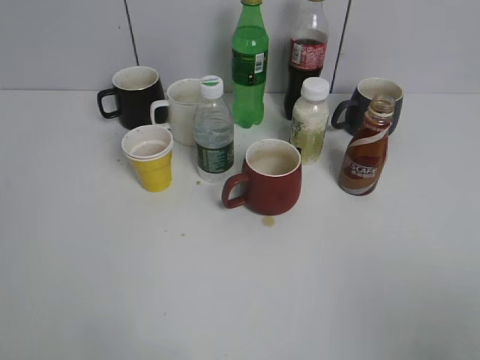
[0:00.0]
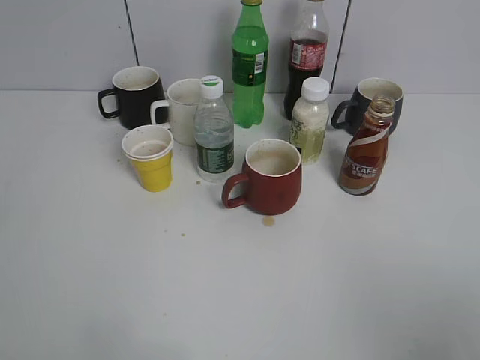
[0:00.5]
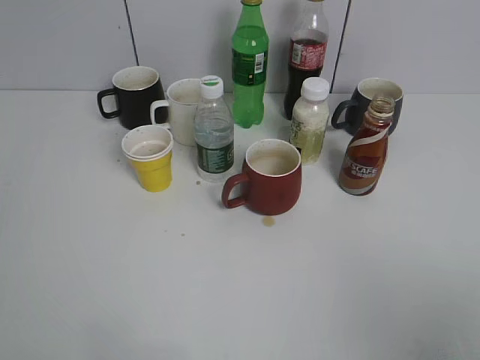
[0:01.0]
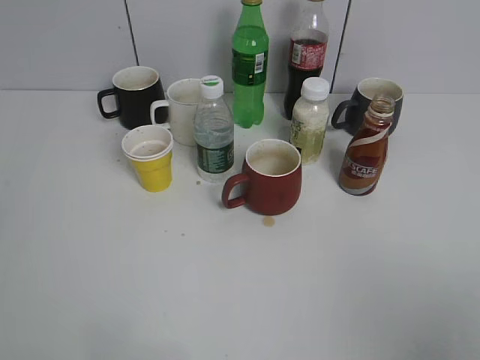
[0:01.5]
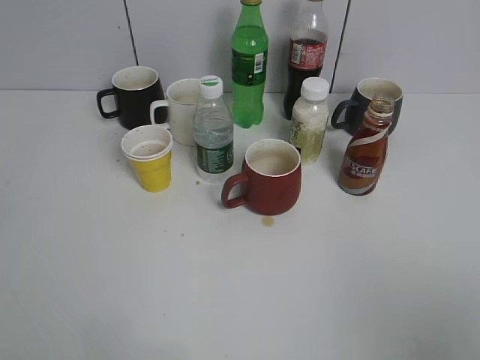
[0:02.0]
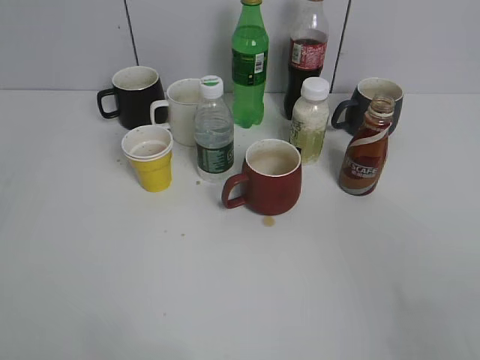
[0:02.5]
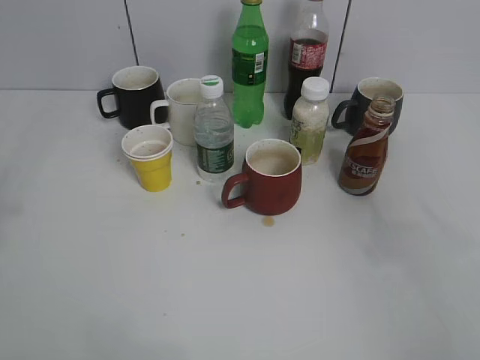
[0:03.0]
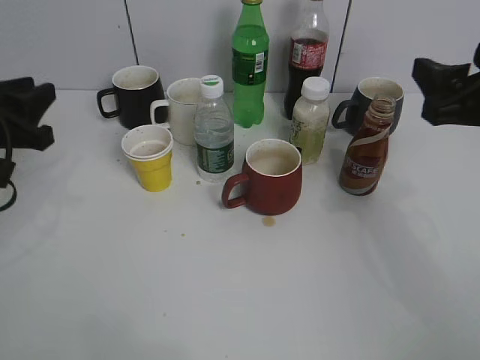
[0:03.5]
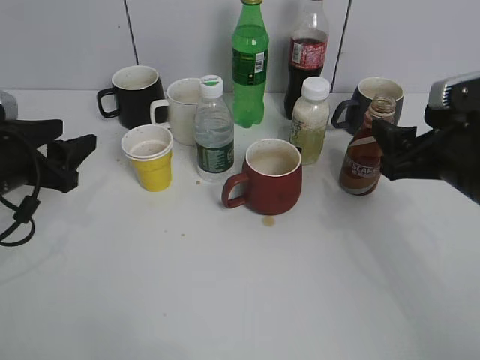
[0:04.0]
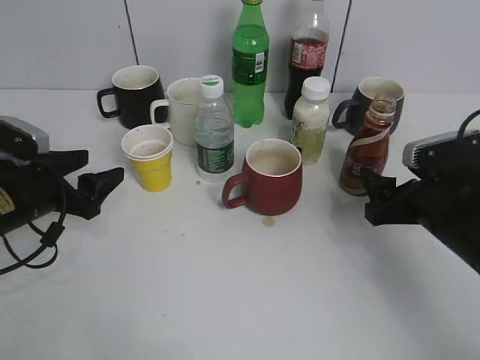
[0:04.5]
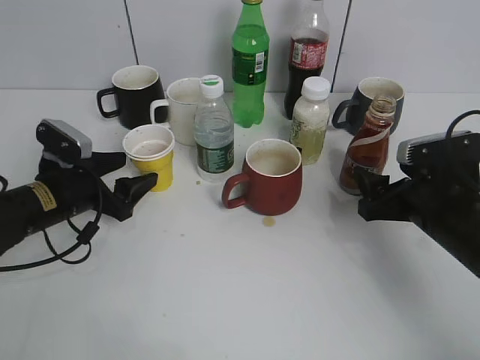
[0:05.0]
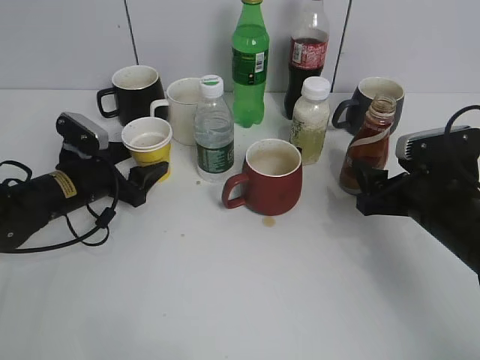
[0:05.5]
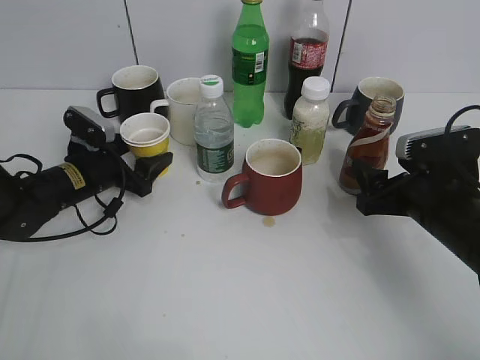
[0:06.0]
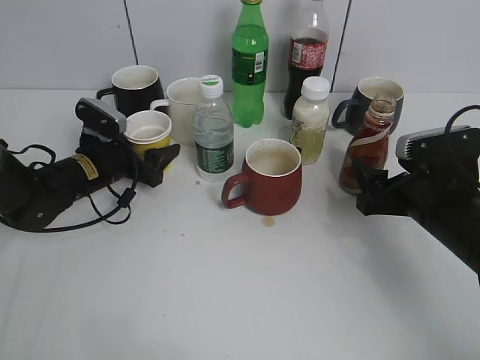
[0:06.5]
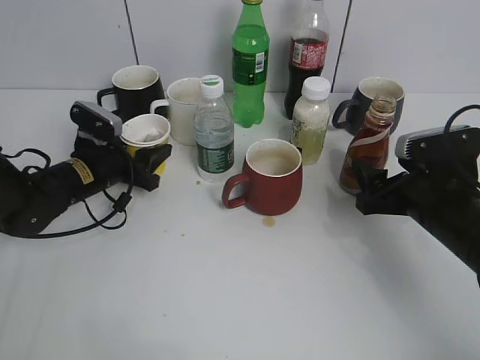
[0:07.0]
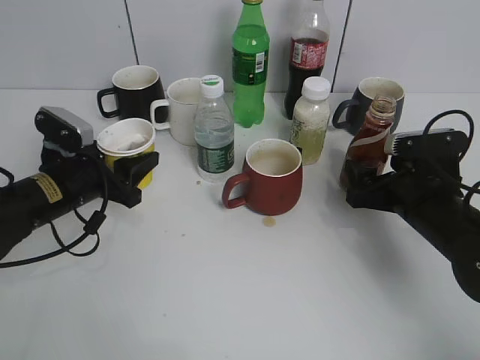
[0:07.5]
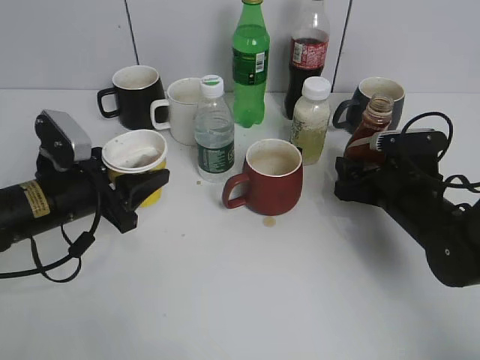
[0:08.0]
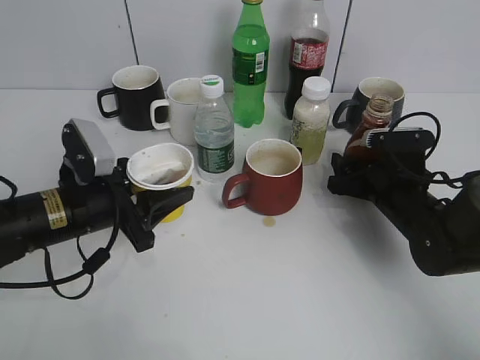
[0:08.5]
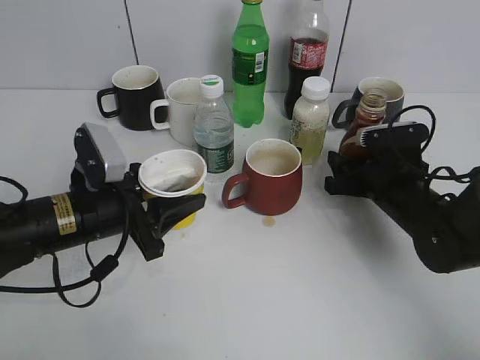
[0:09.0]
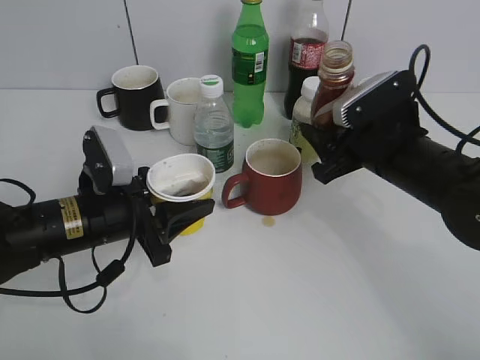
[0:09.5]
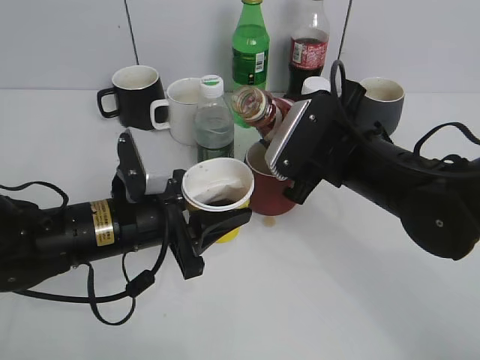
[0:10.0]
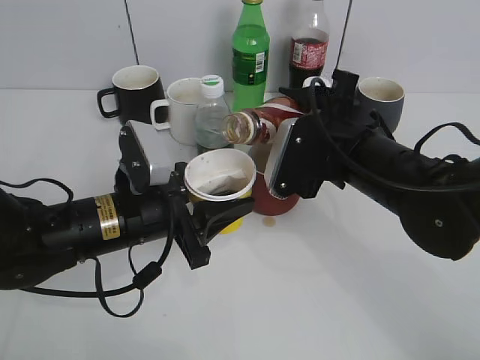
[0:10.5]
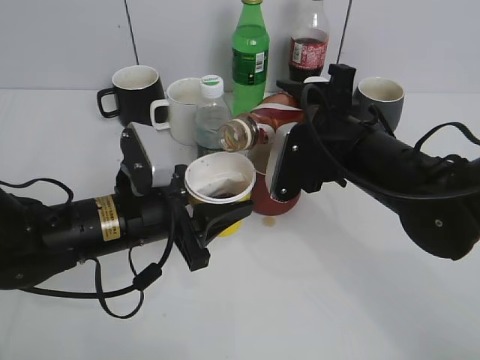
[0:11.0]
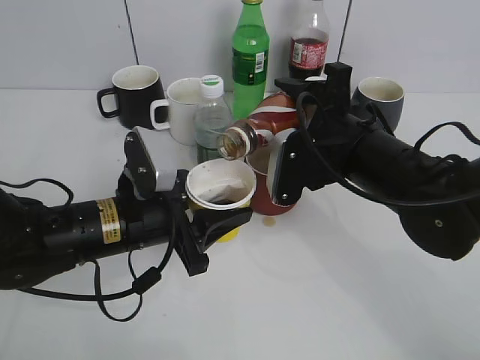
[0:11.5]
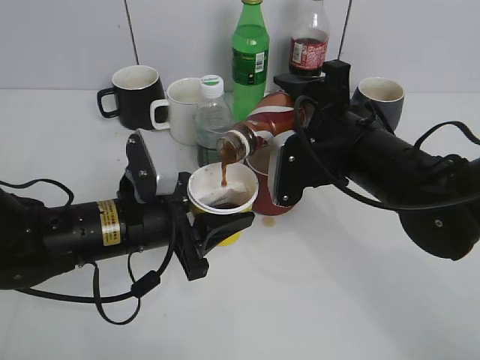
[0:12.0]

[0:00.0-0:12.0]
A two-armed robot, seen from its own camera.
Step, 0:02.5 to 0:06.5: Grasp the yellow paper cup with left gripper.
Step, 0:07.5 to 0:08.5: Grasp the bottle with coffee with right gripper.
0:02.0 to 0:04.0: The two grippers go roughly 30 cm forward and downward. The left gripper opens up.
0:04.0 to 0:06.0: The right gripper is displaced downward by roughly 5 cm. Meanwhile the left gripper goes roughly 15 cm downward, forward and to the right.
0:06.0 to 0:08.0: The left gripper heads backward and upward, covering roughly 10 cm, and closes up, while the right gripper shifts by approximately 5 cm.
0:08.0 to 0:10.0: The left gripper goes some 10 cm to the right, while the right gripper shifts about 15 cm to the left and upward, and closes its fingers.

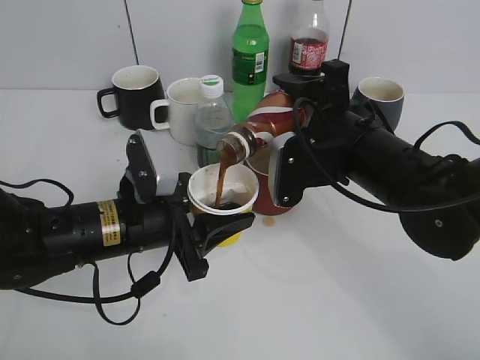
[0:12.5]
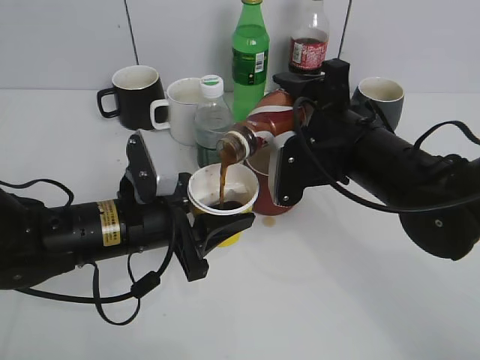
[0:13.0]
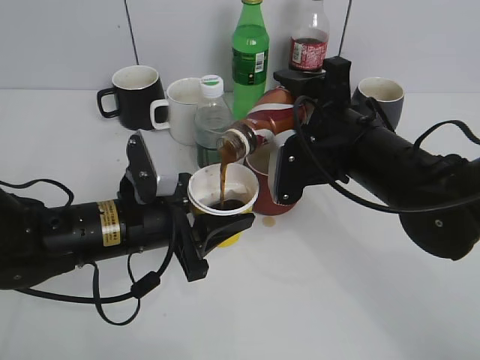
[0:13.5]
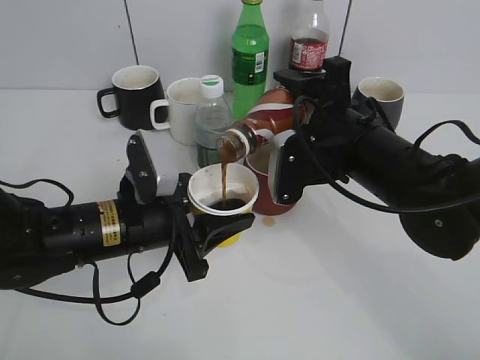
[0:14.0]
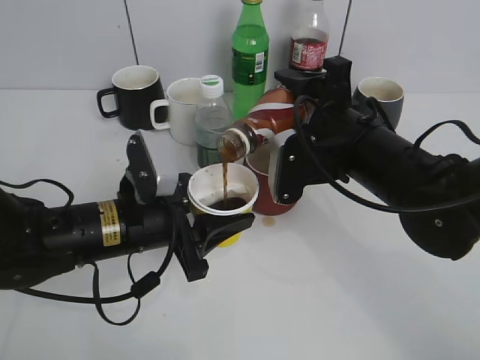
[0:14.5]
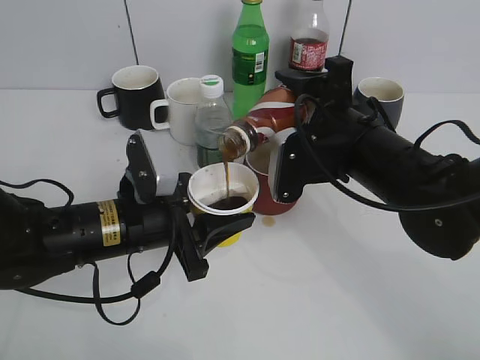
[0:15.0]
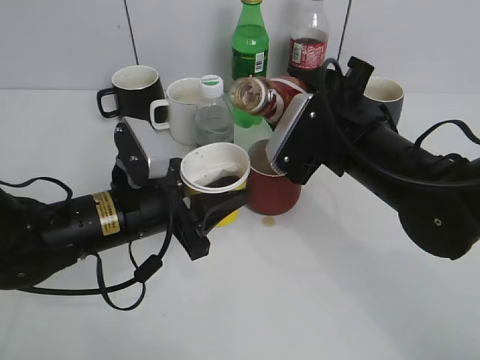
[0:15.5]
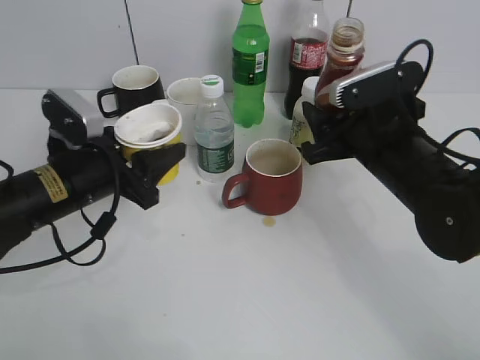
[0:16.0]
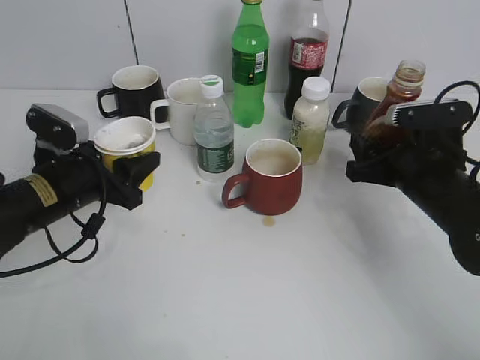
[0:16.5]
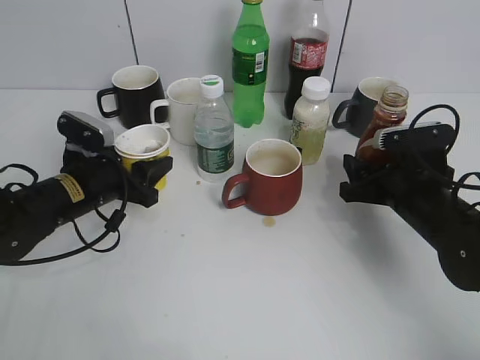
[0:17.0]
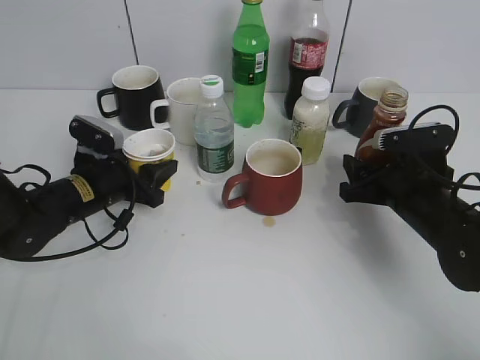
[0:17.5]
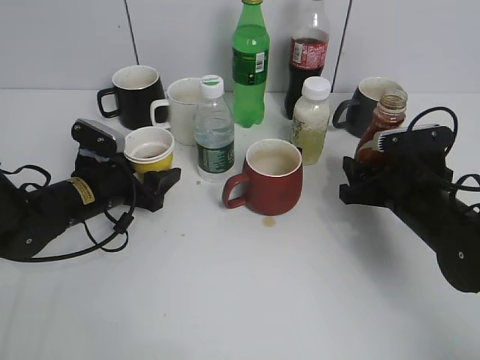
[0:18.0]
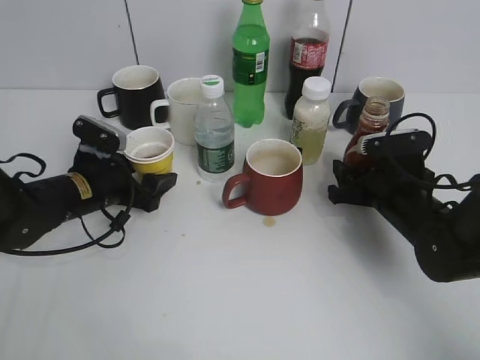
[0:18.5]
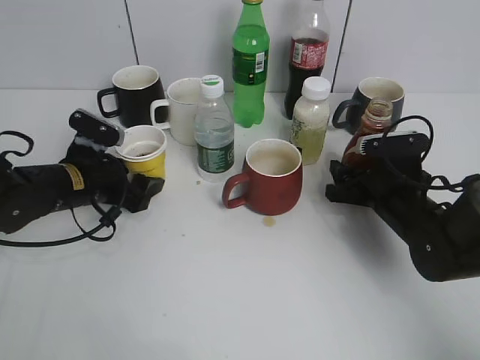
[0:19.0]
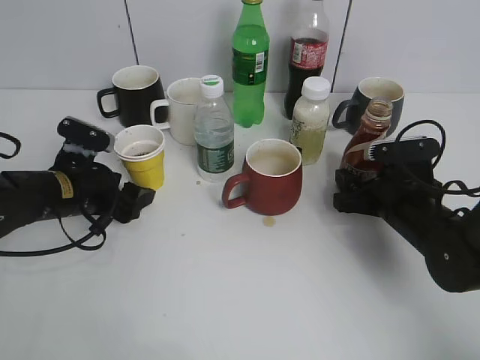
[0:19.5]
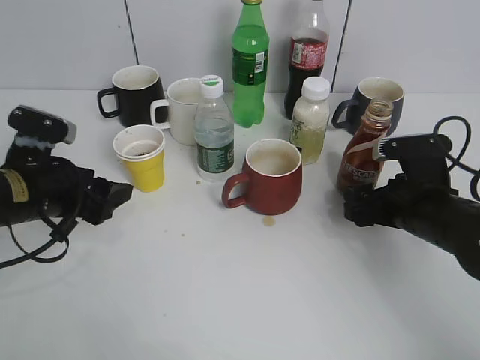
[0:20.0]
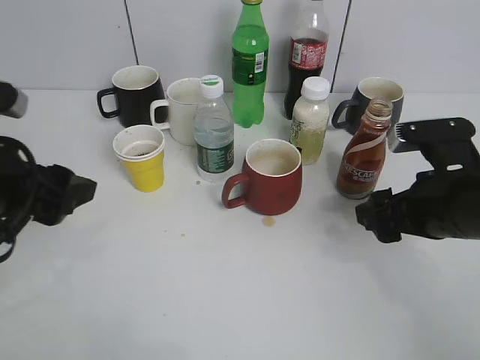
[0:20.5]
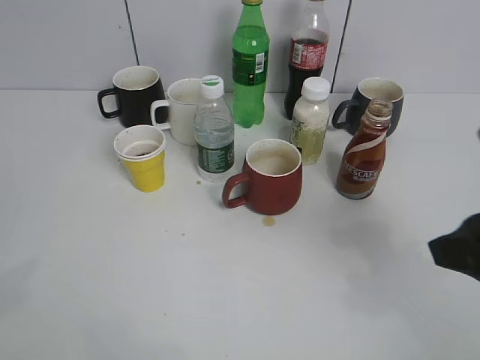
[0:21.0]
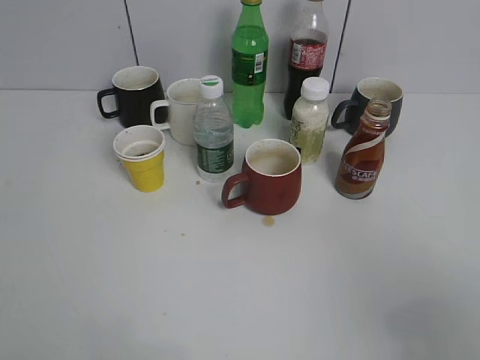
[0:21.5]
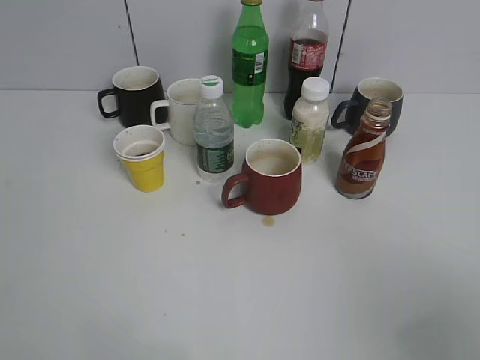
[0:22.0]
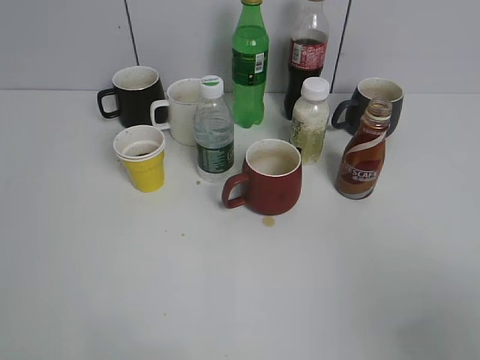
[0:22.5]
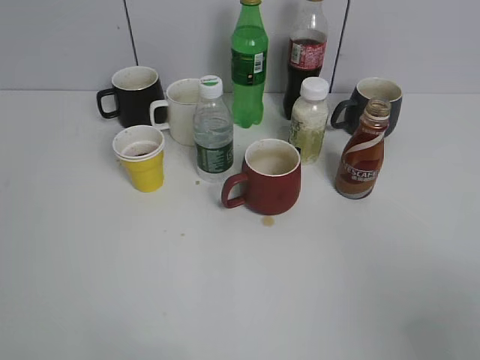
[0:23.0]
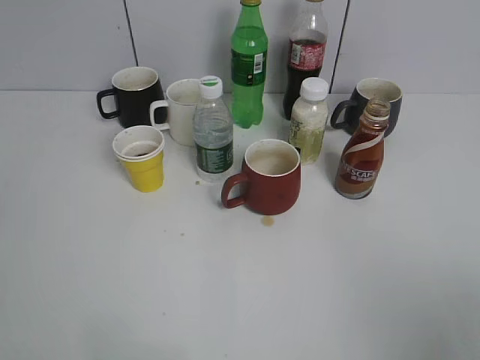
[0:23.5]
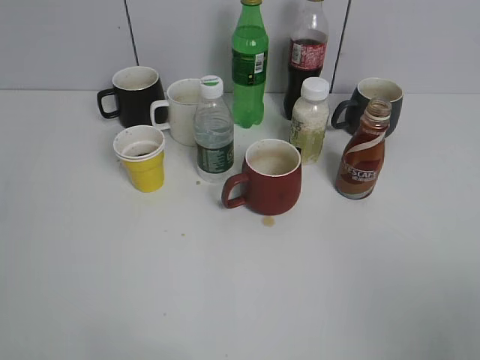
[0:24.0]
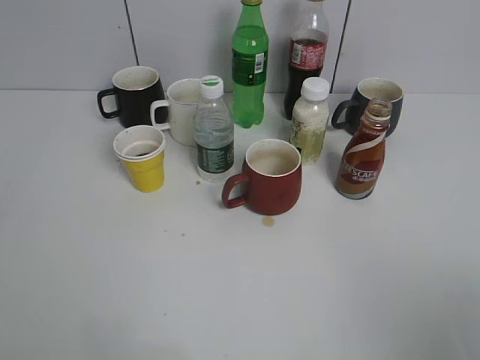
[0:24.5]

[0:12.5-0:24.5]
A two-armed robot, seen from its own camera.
Step, 0:12.5 to 0:15.5: Pour the coffee from bottle to cup with right gripper.
Step, 0:16.0 to 0:19.5: Place the coffee bottle on the table with right gripper.
0:12.5 to 0:14.5: Both grippers stay put.
0:14.5 to 0:16.5: The right gripper heads to the right, covering approximately 10 cm; the left gripper shifts roughly 10 cm to the left.
0:16.5 to 0:18.5: Both grippers move downward, approximately 5 cm. The left gripper opens its fingers.
0:18.5 to 0:20.5: The left gripper is displaced upward and backward by approximately 20 cm. The right gripper shifts about 10 cm upward and backward, and opens its fingers.
0:20.5 to 0:22.5: The left gripper heads backward, upward and to the left, covering some 25 cm, while the right gripper moves backward and upward, approximately 25 cm.

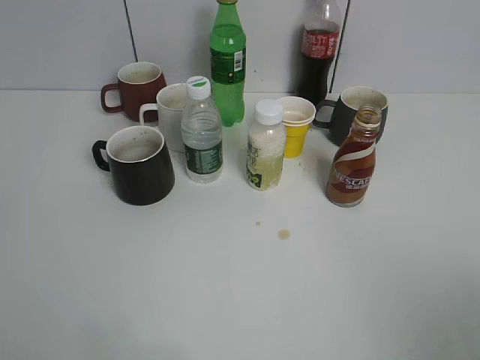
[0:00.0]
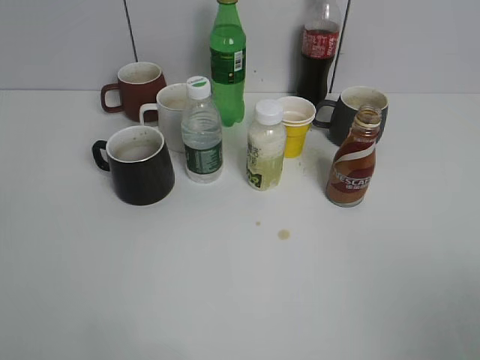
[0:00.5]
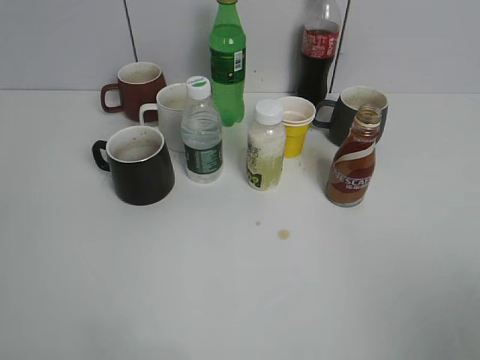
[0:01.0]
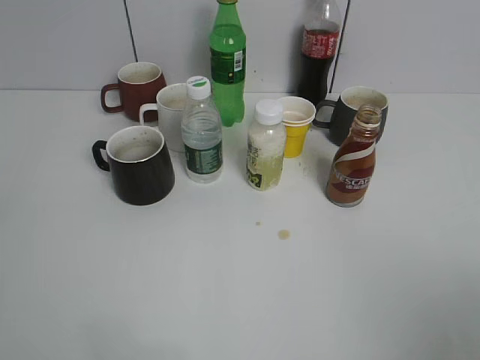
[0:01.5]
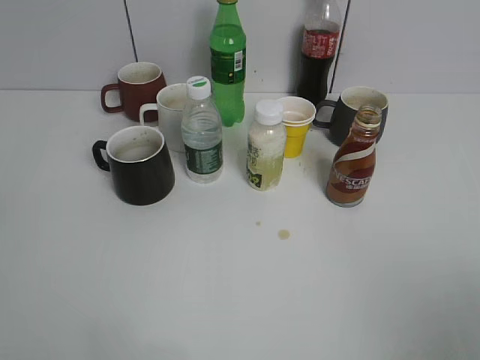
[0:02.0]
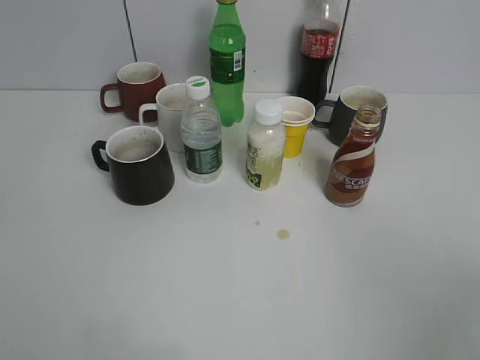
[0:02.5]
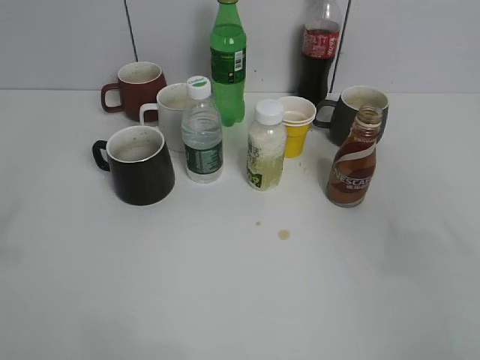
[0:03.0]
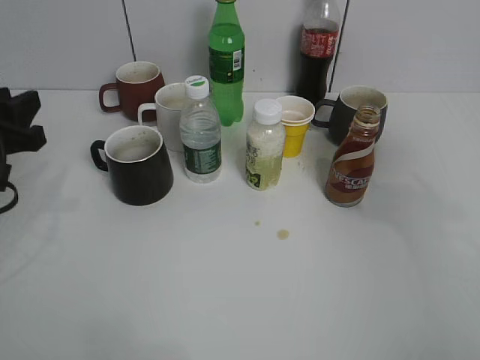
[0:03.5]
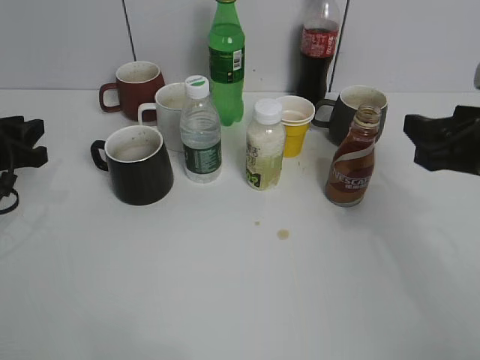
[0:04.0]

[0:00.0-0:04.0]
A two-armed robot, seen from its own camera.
0:02.0 to 0:04.0: The right gripper goes approximately 25 cm forward, and closes. The left gripper moves forward and downward, about 35 cm.
